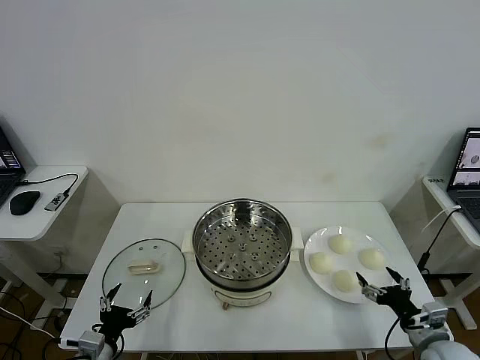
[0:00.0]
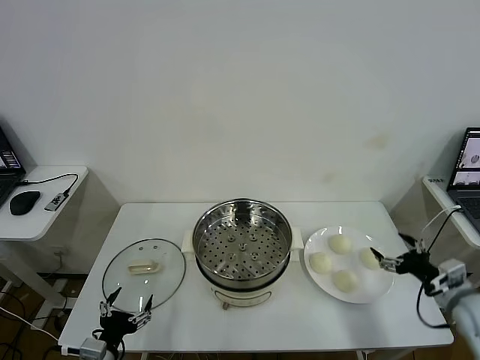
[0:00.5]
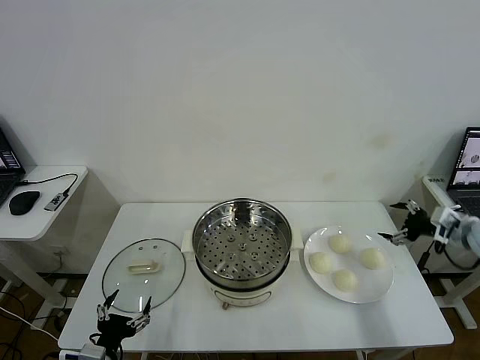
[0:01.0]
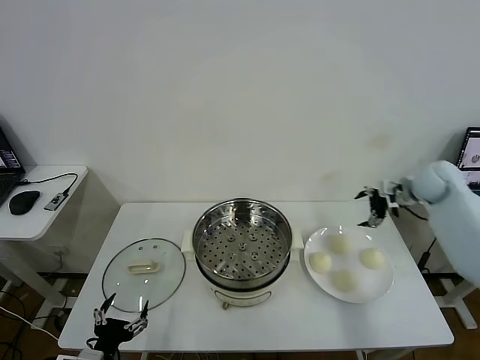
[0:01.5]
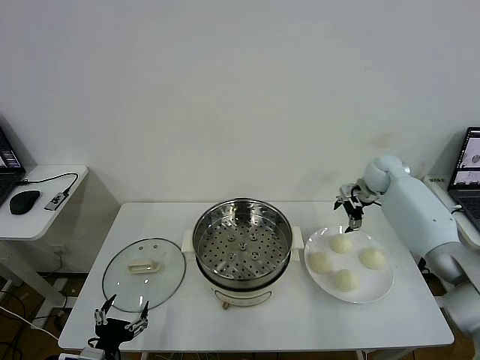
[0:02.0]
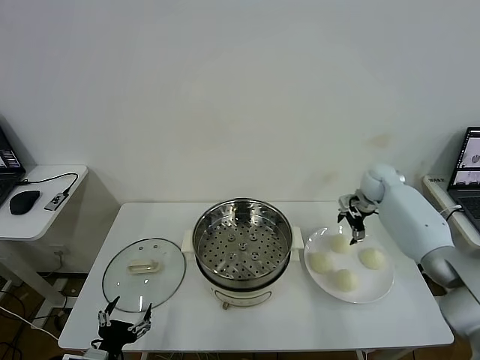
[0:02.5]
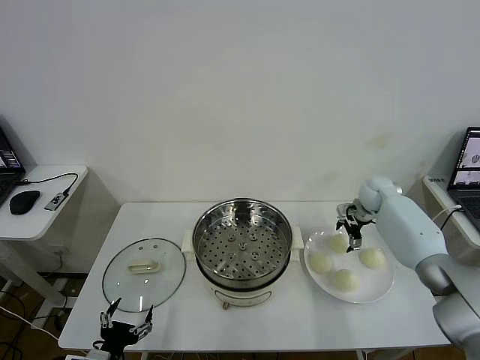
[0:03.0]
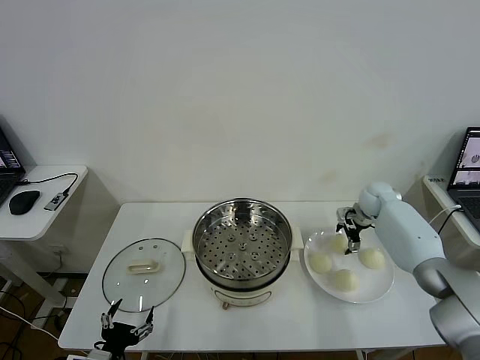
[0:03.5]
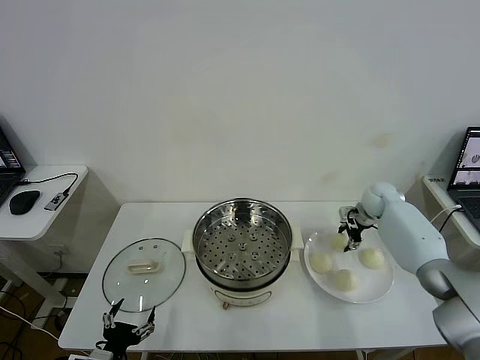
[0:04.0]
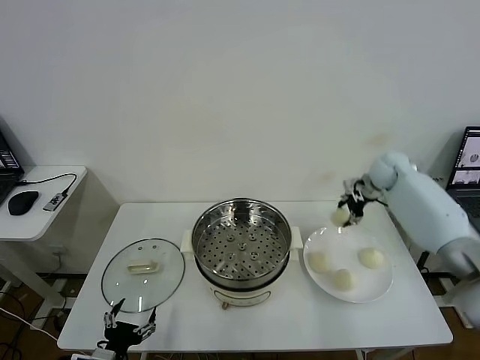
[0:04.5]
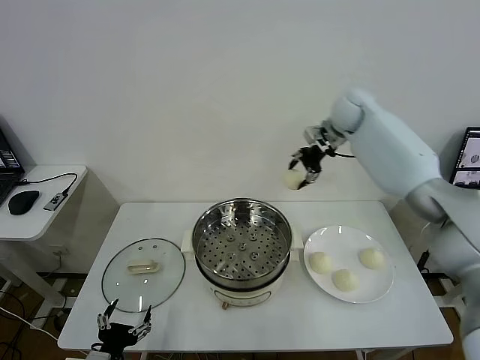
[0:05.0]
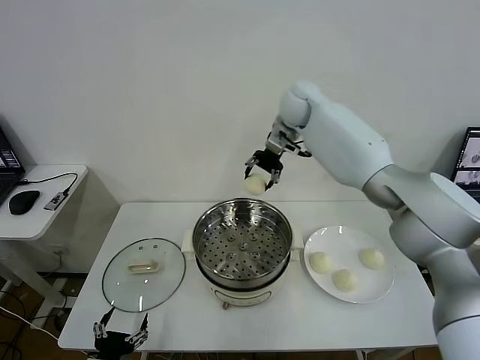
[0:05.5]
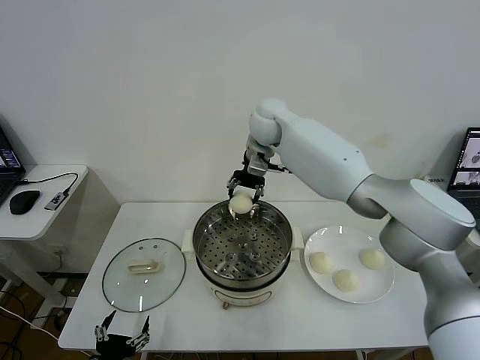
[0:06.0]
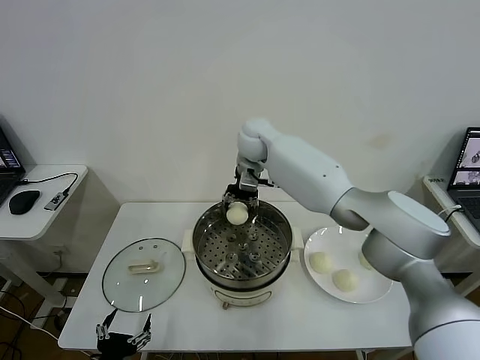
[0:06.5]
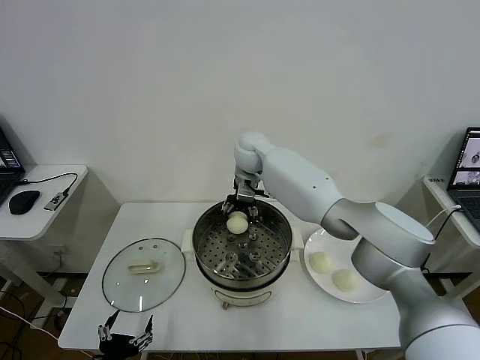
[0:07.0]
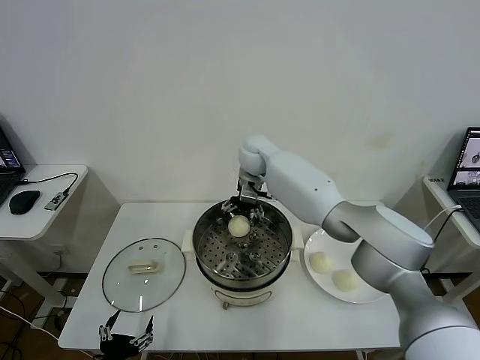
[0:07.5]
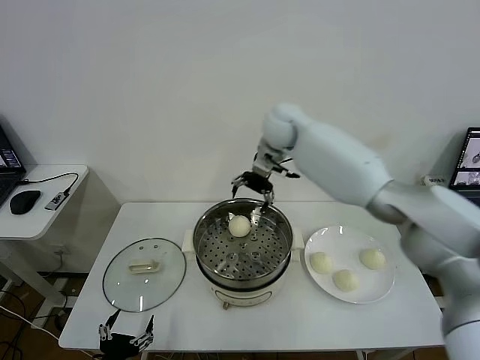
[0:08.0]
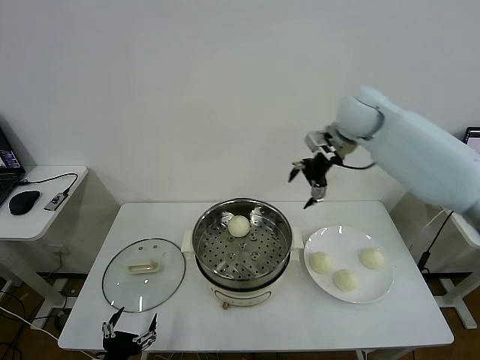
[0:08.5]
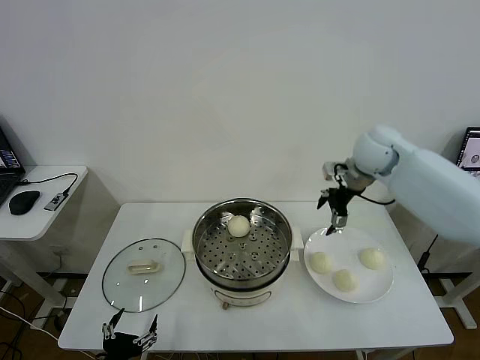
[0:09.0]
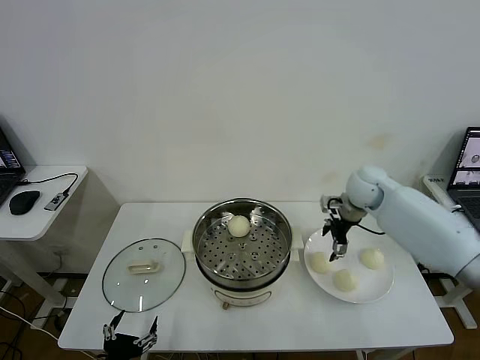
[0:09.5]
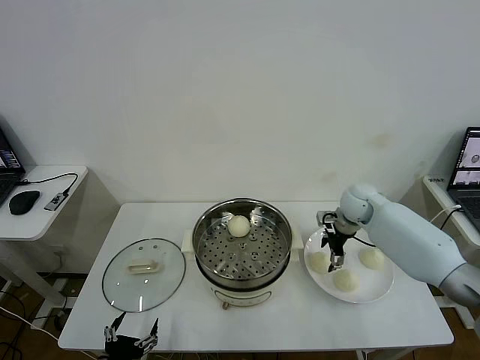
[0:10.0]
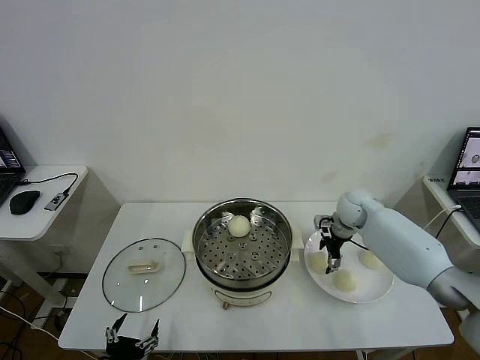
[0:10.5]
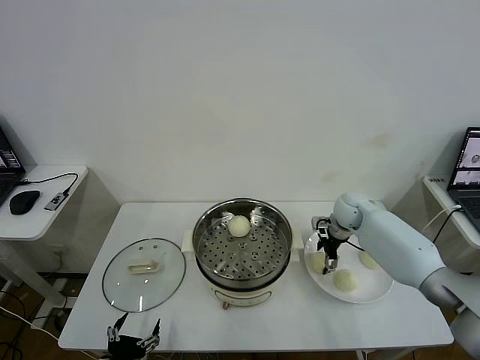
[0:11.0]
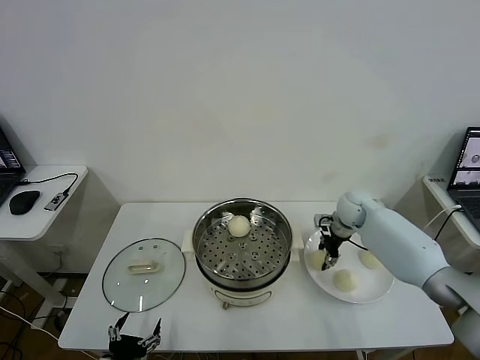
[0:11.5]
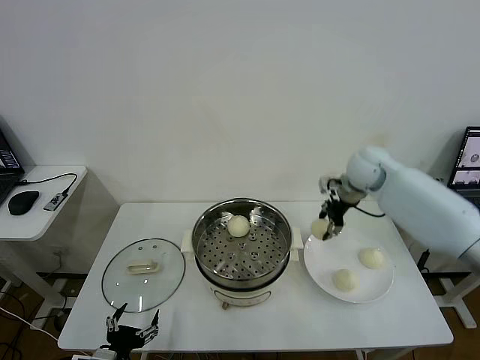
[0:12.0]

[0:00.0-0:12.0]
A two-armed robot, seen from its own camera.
Task of the whole recording: take steamed baozi put them in steamer then cover it.
Step, 0.0 to 4.0 s: Grasp the baozi in the plate with right gripper.
Step, 4.5 to 7.5 s: Place the baozi on the steamer with right gripper.
Step, 8.0 to 11.5 s: Grasp the baozi in the plate with right gripper.
2.0 to 4.0 s: The right gripper shifts roughly 5 cm downward, and closes.
4.0 to 6.0 s: The right gripper moves to the left and upward, about 40 cm.
6.0 to 8.0 s: The right gripper shifts about 5 cm to the right, goes downward and returns, roughly 10 cm each way, and opens.
8.0 to 10.0 s: The right gripper goes some 25 cm downward and to the right.
10.0 to 12.0 s: The right gripper heads upward, covering roughly 15 cm, and closes.

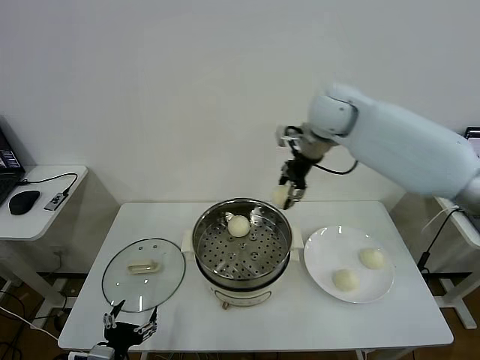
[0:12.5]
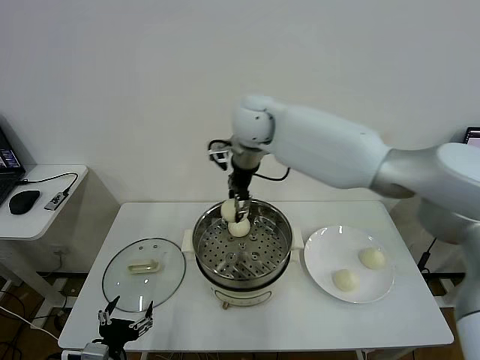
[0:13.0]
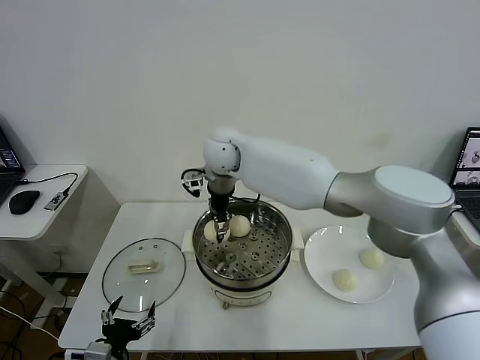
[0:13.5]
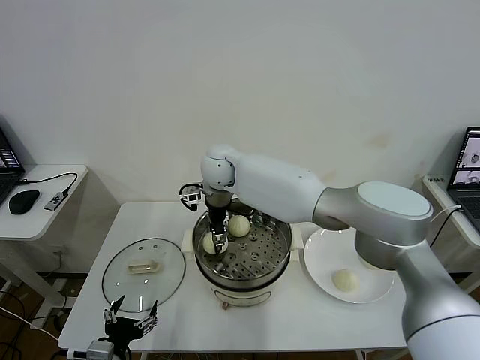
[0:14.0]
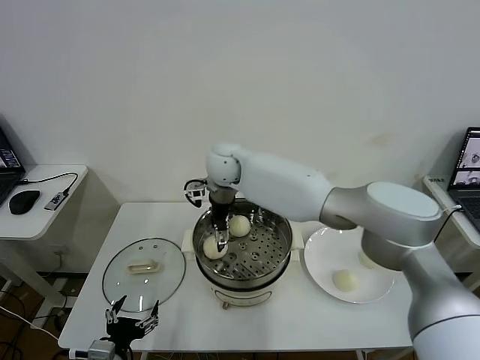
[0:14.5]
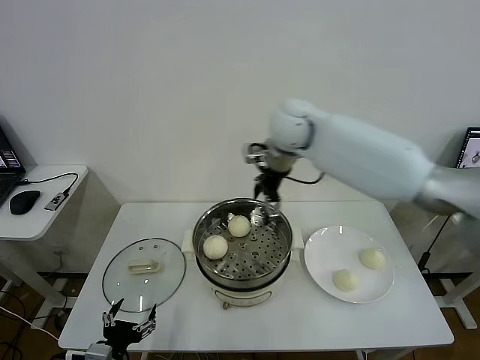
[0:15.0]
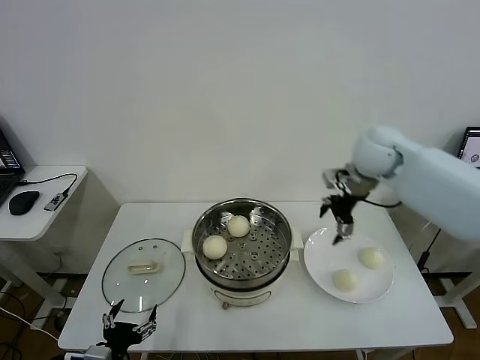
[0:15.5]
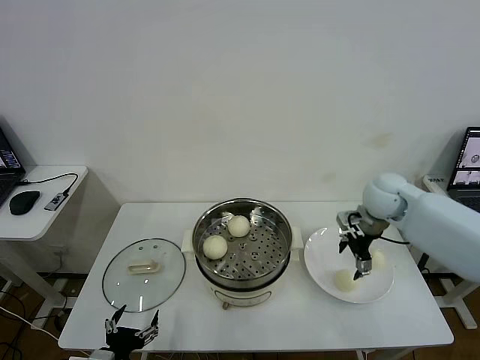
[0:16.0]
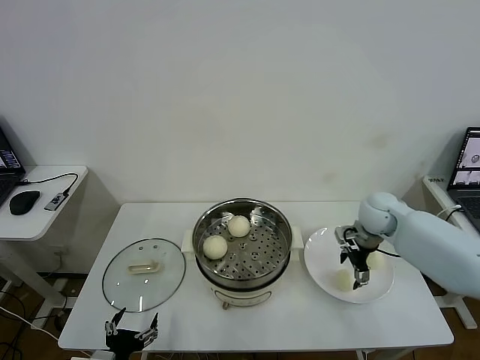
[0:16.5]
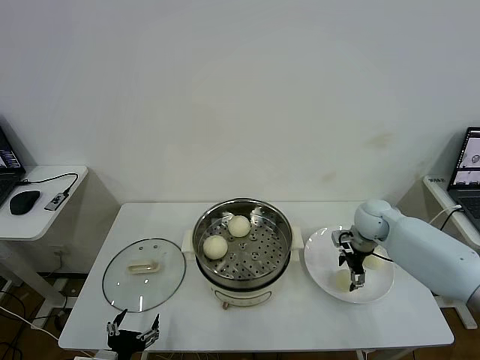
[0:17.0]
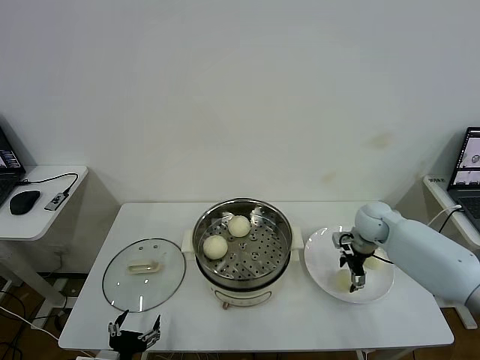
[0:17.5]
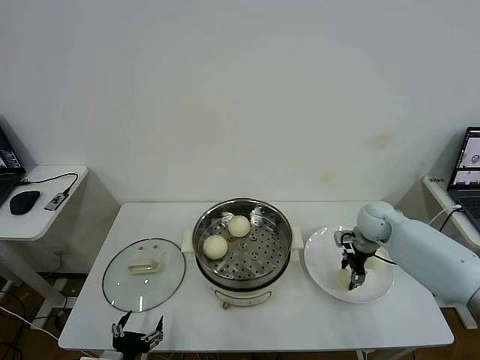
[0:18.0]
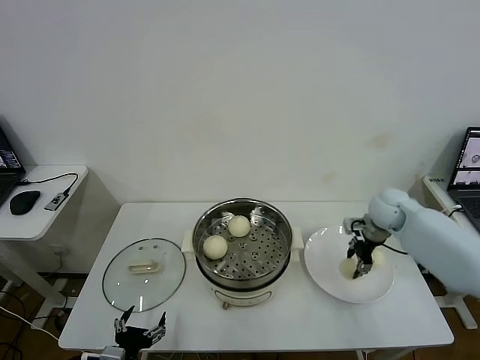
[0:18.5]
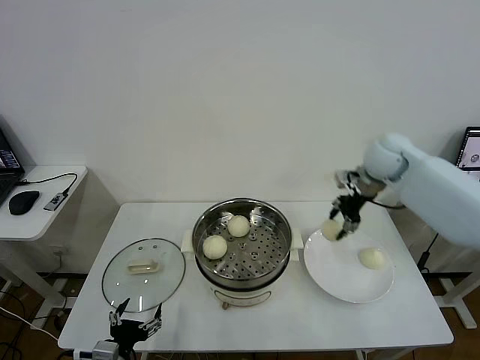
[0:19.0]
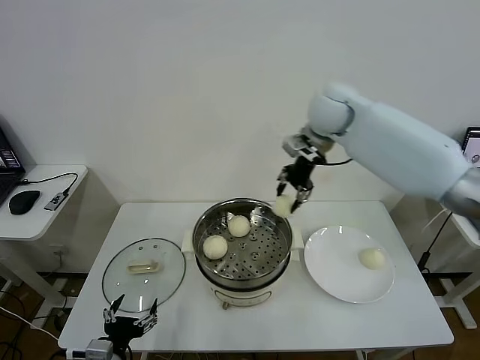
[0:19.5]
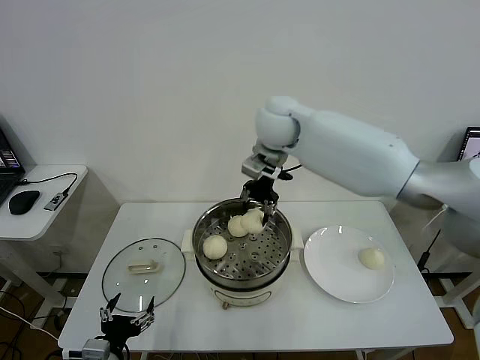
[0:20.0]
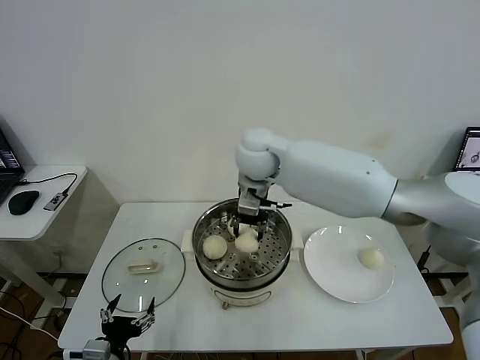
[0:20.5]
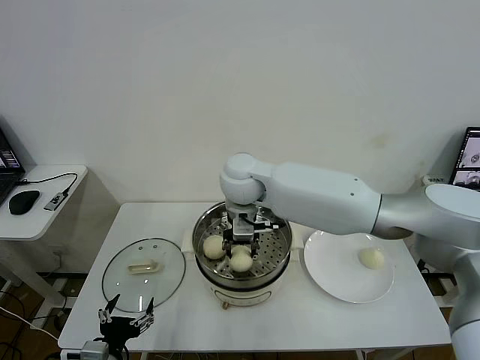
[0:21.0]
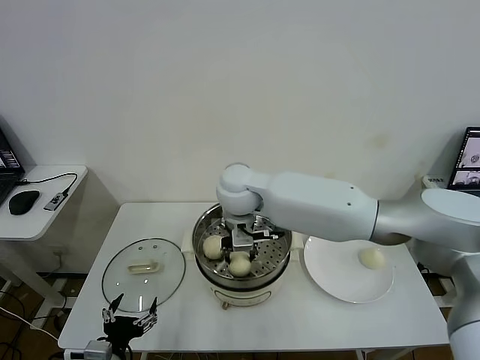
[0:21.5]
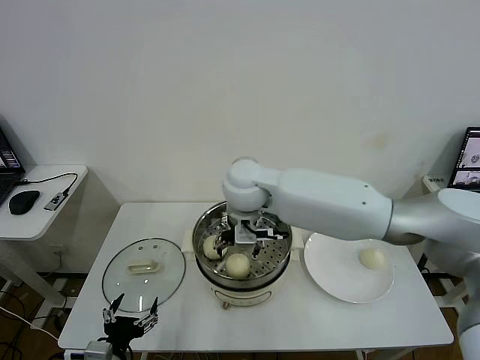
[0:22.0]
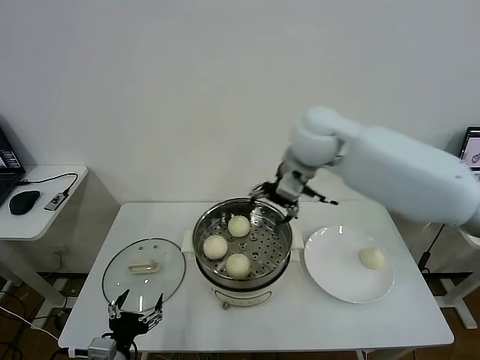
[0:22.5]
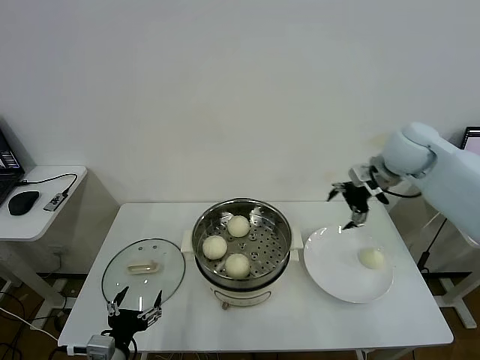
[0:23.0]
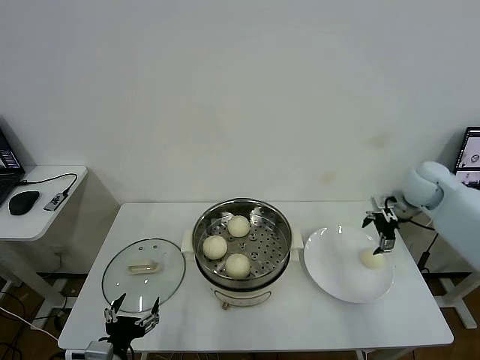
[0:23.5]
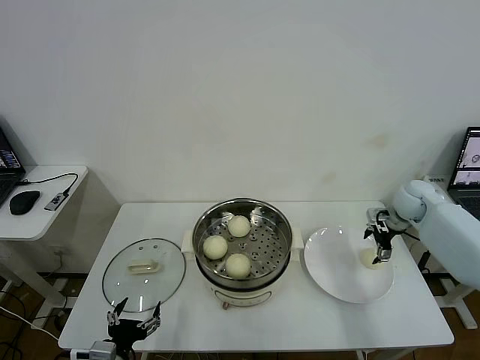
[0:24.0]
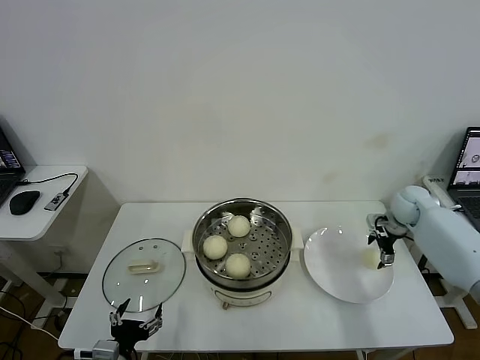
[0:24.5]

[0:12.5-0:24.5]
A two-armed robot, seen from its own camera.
Task of the whole recording: take steamed baozi put them in steamer then cover it.
Step, 12.5 to 14.5 s: Place the baozi on the steamer with right gripper.
Step, 15.0 to 18.0 s: Grasp the baozi in the plate with right gripper.
Step, 18.5 to 22.0 s: Place the baozi on the steamer with right gripper.
12.5 to 14.5 s: The right gripper heads to the left and downward, covering roughly 20 cm, and opens.
14.5 to 16.5 s: The right gripper shifts about 35 cm to the right.
16.5 to 18.5 s: The right gripper closes its fingers.
18.5 to 20.5 s: The right gripper heads to the left and upward, covering about 35 cm.
20.5 to 22.5 s: The right gripper heads to the right and upward, covering some 15 cm, and opens.
22.5 to 24.5 s: The right gripper shifts some 35 cm to the right and downward.

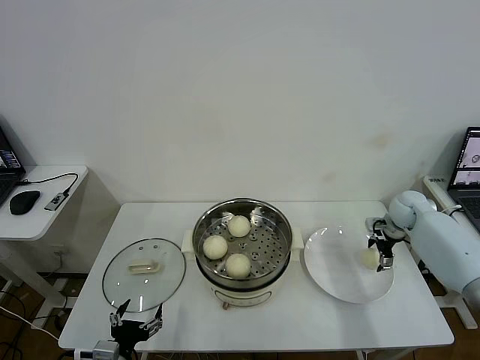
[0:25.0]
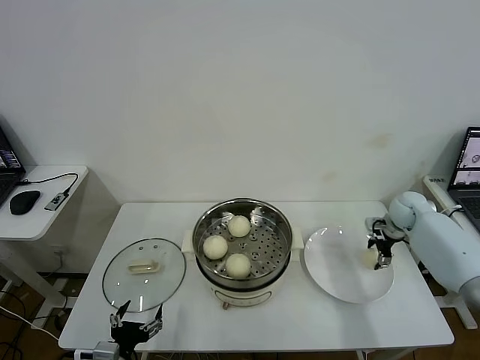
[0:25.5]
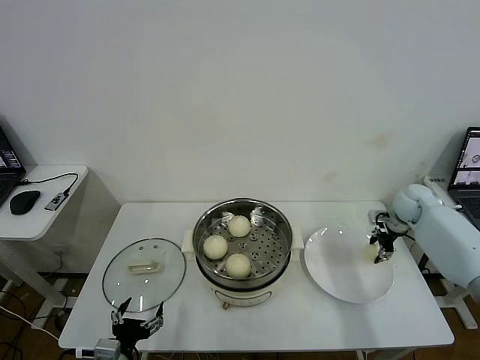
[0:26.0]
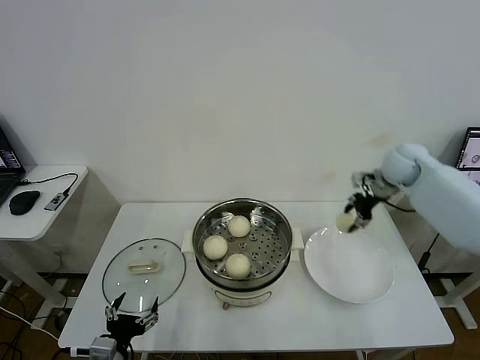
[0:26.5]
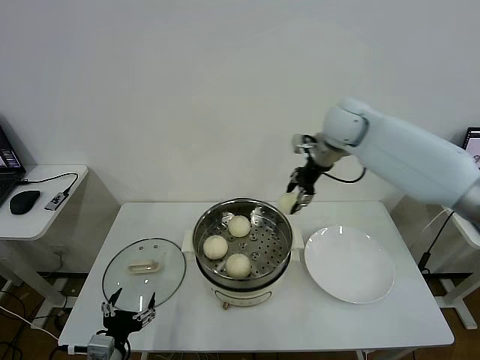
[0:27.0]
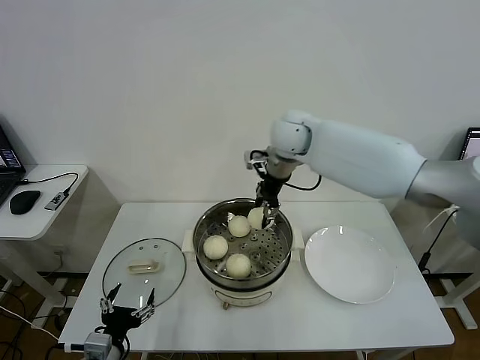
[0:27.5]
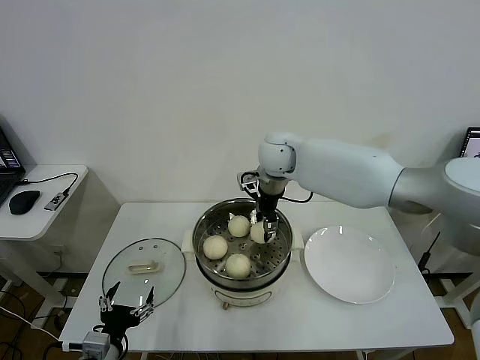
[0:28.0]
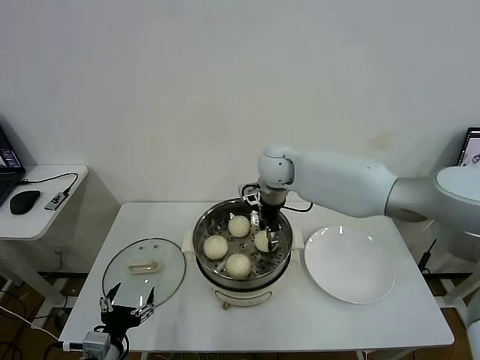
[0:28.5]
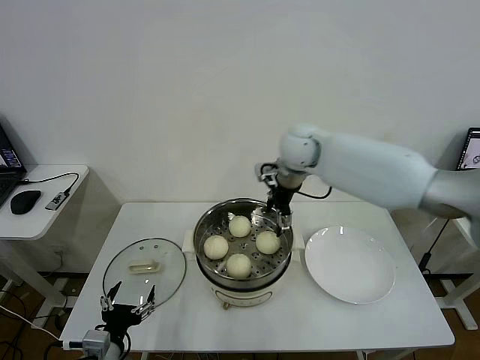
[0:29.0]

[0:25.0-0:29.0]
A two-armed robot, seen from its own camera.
Task of the whole recording: take steamed baozi put them in steamer then cover it.
Step, 26.5 to 29.0 s: Place the baozi on the steamer with right gripper.
25.0 to 27.0 s: The right gripper is displaced to the left and upward by some 35 cm, and closes.
27.0 to 29.0 s: The right gripper is displaced to the left by some 10 cm, and opens up.
